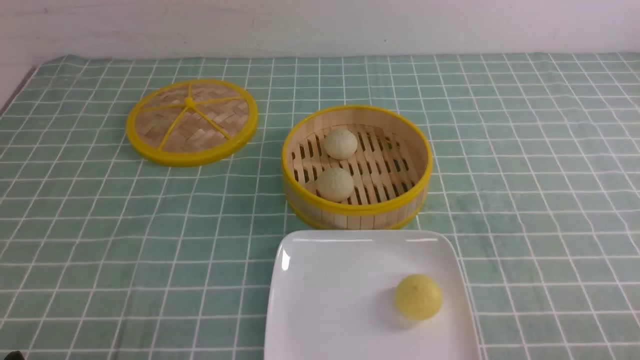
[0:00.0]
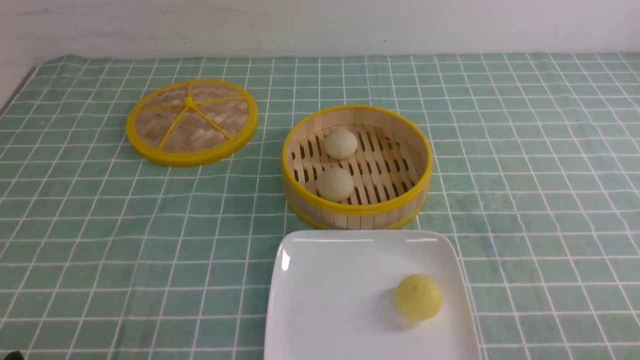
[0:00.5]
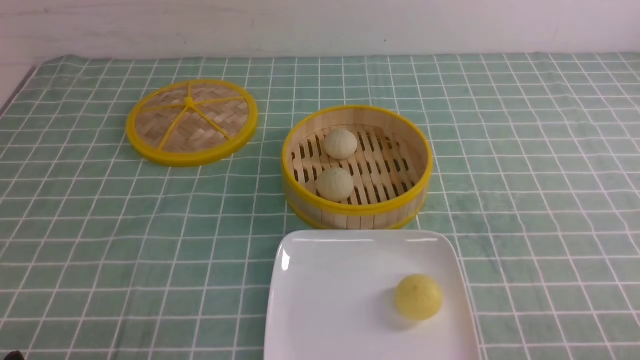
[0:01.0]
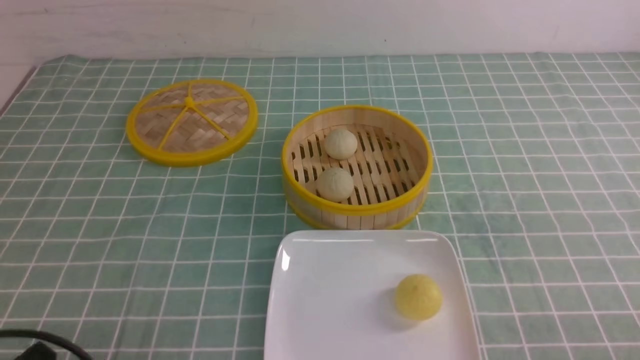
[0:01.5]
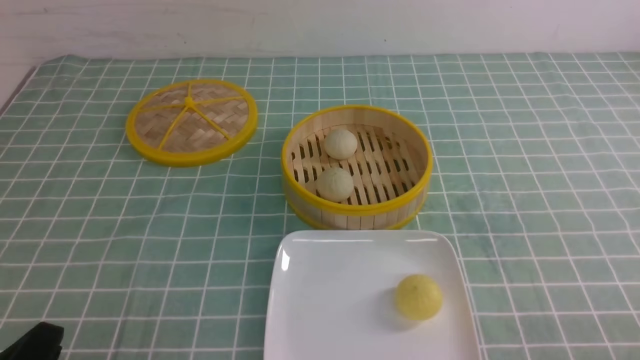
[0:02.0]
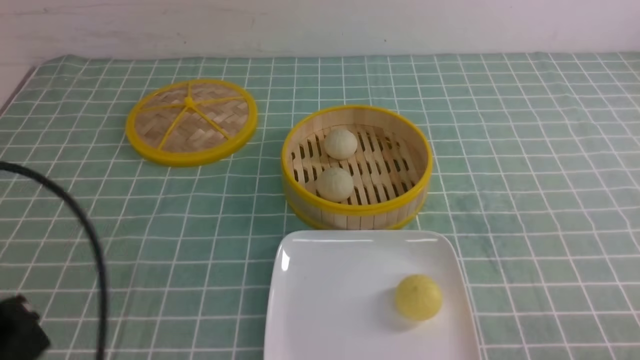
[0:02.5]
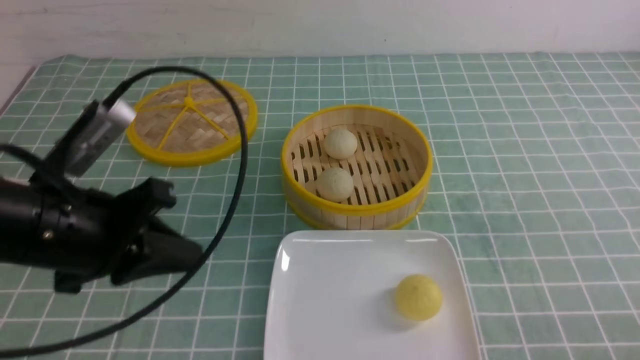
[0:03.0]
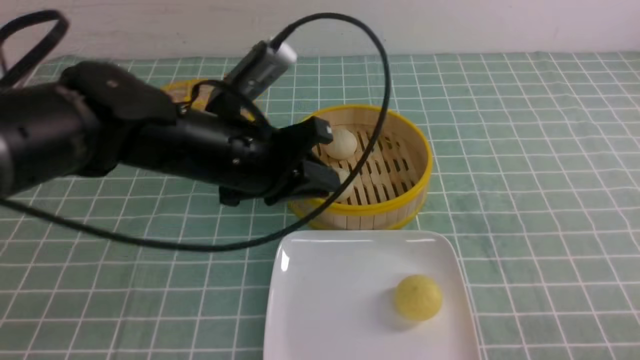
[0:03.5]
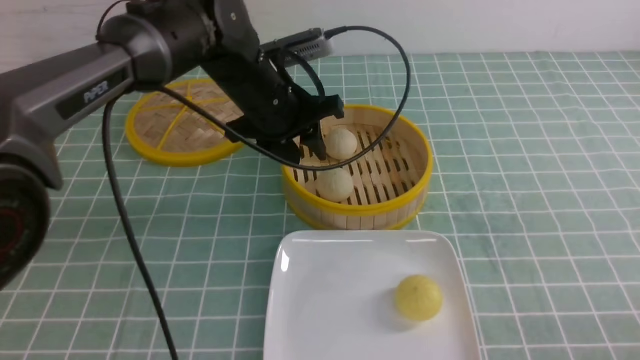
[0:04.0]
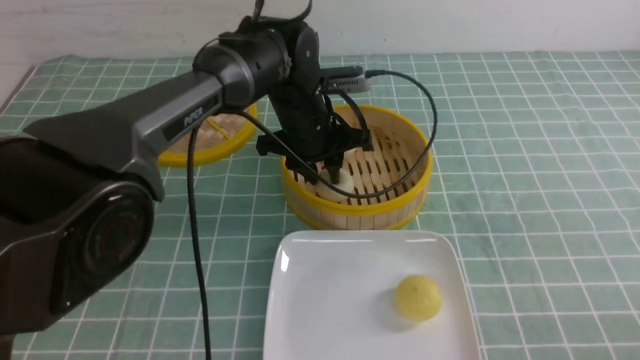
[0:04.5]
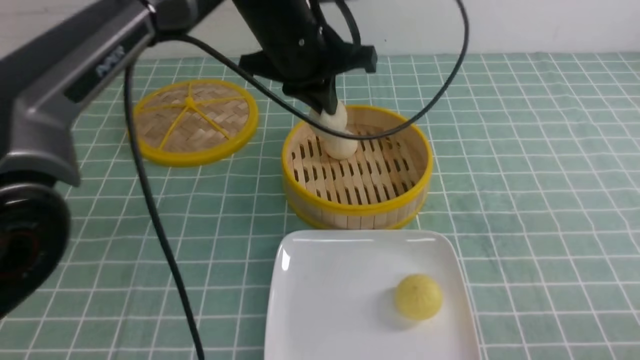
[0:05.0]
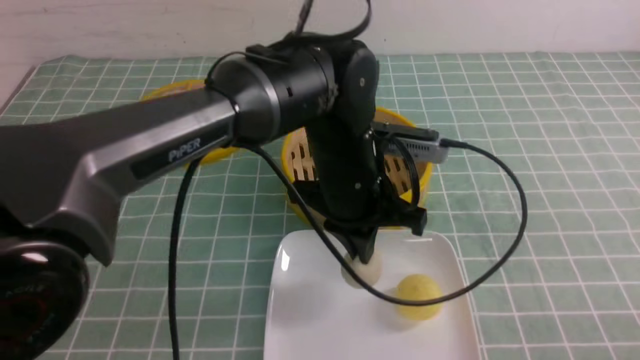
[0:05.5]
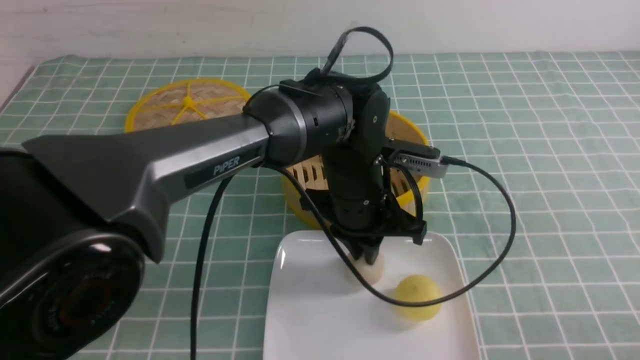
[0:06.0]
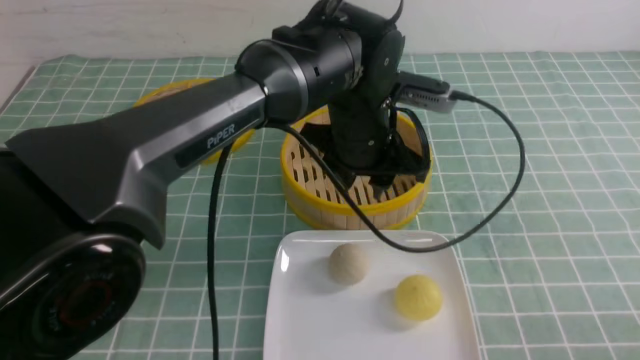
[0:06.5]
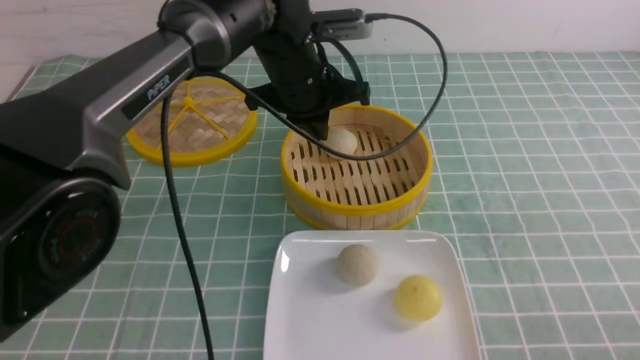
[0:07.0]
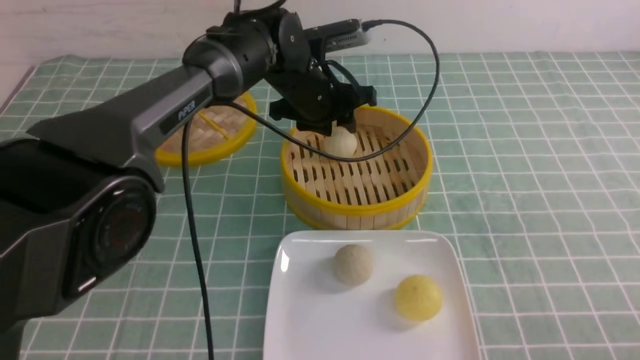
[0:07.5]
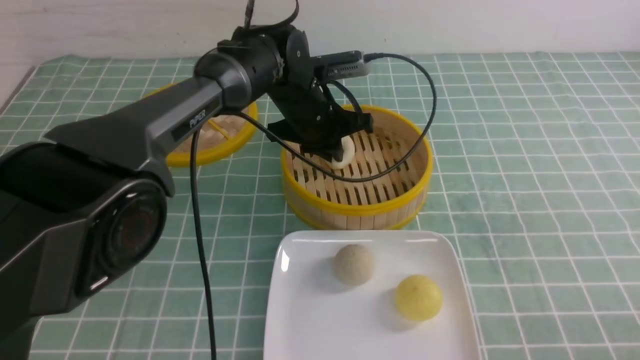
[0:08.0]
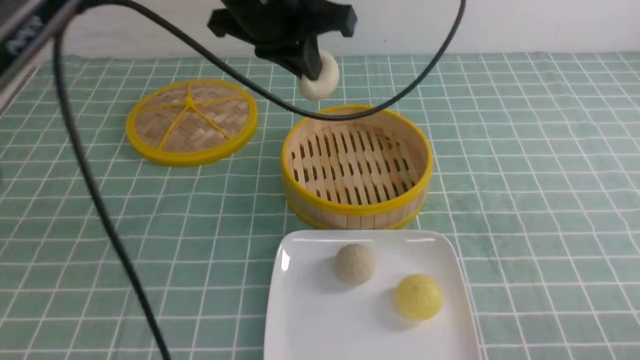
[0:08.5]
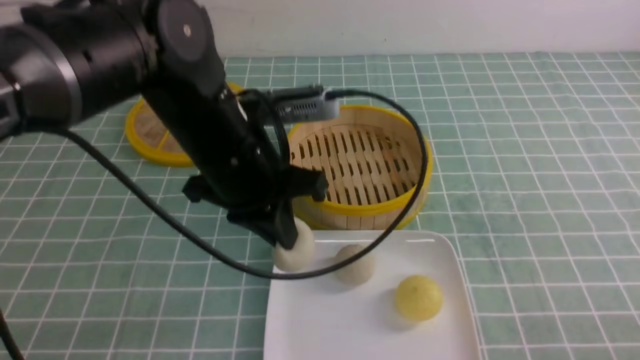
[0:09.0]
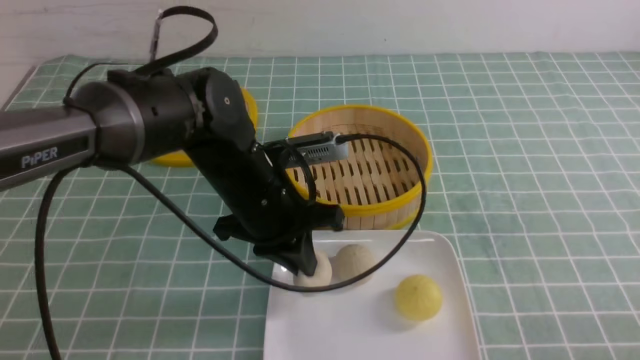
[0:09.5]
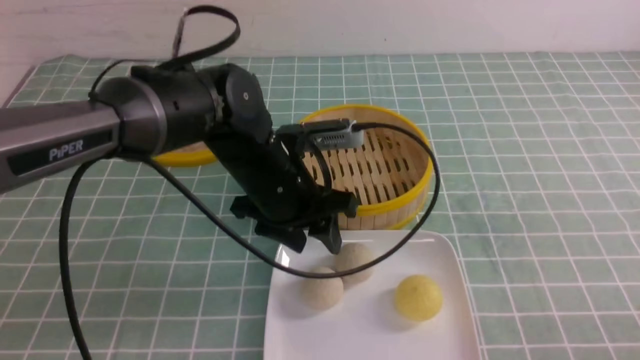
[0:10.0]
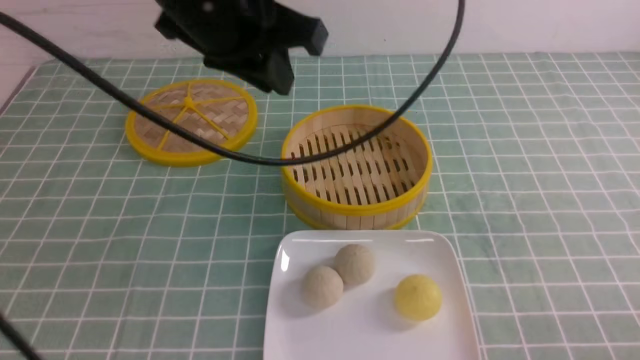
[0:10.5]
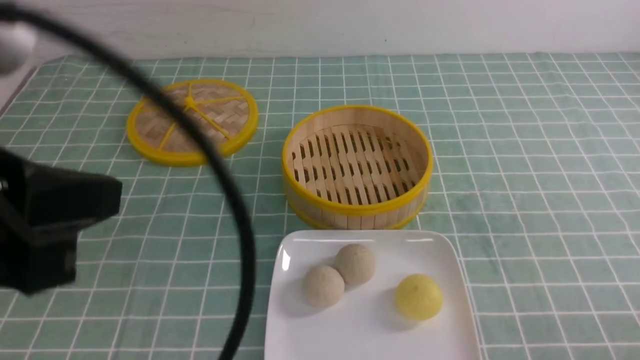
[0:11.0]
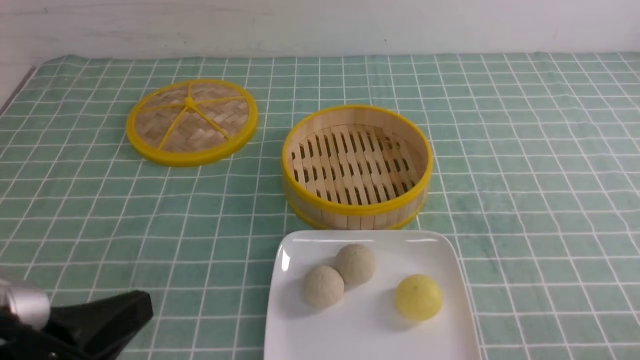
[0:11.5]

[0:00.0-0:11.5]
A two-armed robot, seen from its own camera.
Step, 0:00.0 to 0:04.5: use the left arm to grab the steamed stuffed bun that is closest to it.
Step, 0:05.0 to 0:06.0: use the left arm to put the steamed stuffed bun into the plate.
Step, 0:06.5 to 0:08.0: use the left arm to grab the steamed stuffed bun that is closest to it.
Step, 0:08.5 to 0:09.5: use the left arm to put the steamed stuffed bun into the plate.
0:02.0 to 0:04.0: The left gripper goes about 40 cm forward and to the right, and opens.
0:04.0 to 0:06.0: The left gripper moves to the right and backward, some 10 cm, and closes.
0:06.0 to 0:07.5: The left gripper is displaced forward by approximately 15 cm, and opens its fingers.
0:07.5 to 0:09.5: The left gripper shifts about 15 cm backward, reaches roughly 15 cm upward, then returns, and closes its fingers.
0:09.5 to 0:11.5: The left gripper heads backward and to the left, covering roughly 25 cm, and opens and closes again.

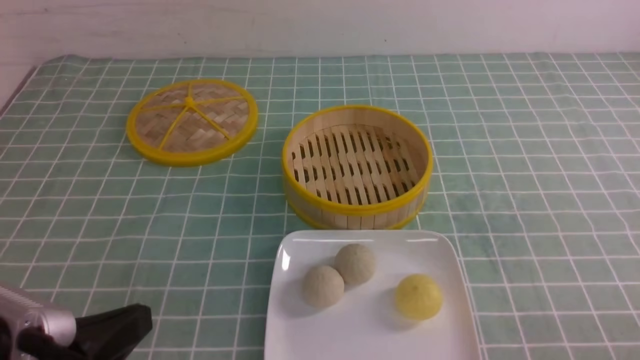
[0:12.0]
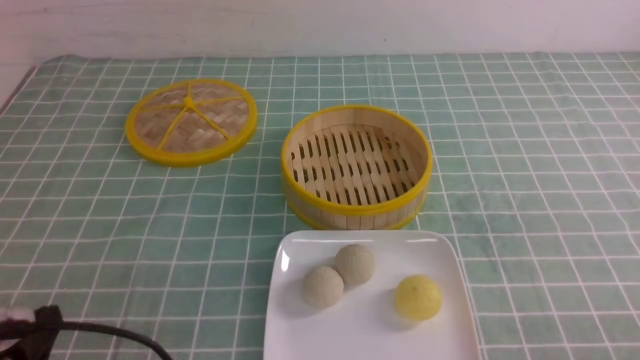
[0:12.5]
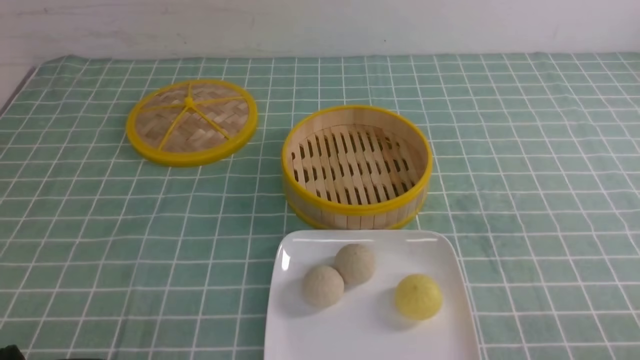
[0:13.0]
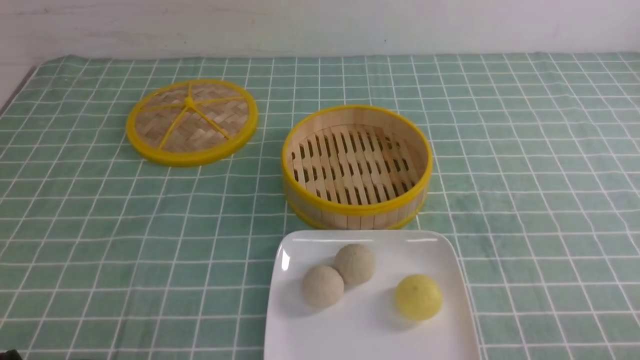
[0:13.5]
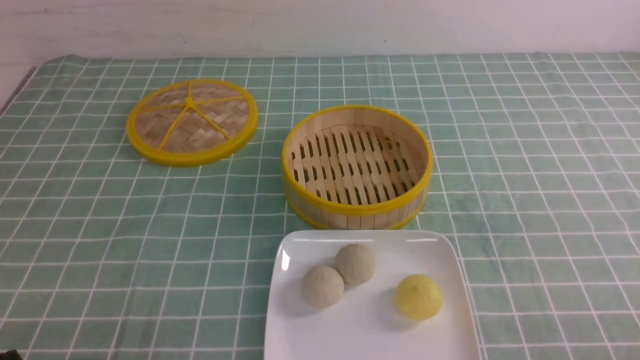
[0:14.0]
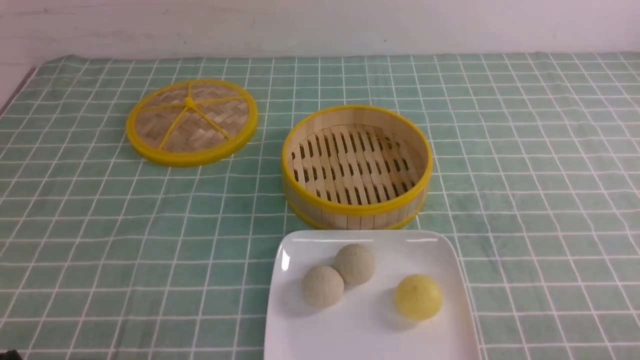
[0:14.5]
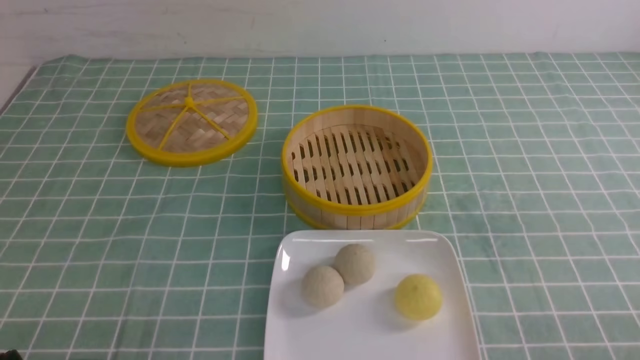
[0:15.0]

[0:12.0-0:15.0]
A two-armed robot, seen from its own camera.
0:12.0 to 0:13.5: The left gripper is displaced downward and to the left by about 10 cm.
0:13.5 to 0:15.0: Both grippers stay put.
